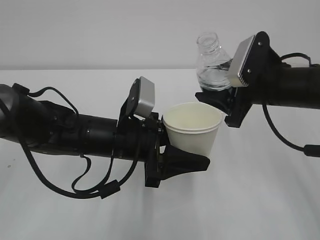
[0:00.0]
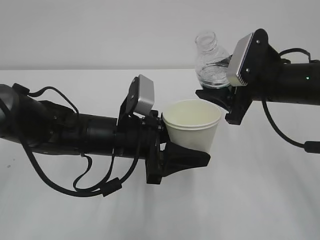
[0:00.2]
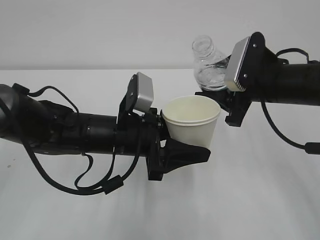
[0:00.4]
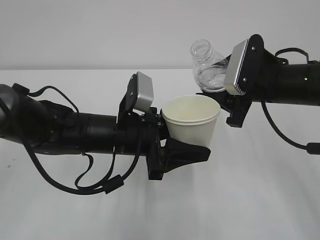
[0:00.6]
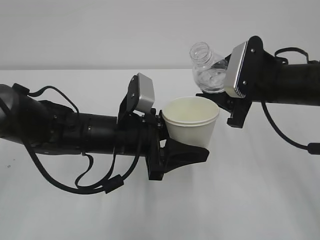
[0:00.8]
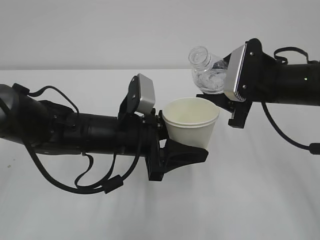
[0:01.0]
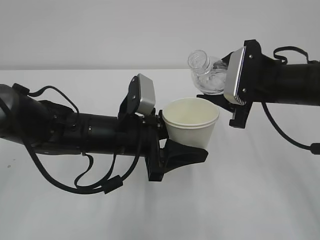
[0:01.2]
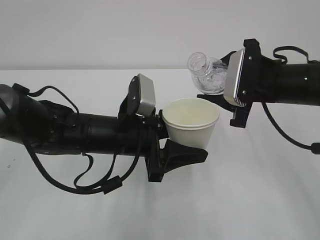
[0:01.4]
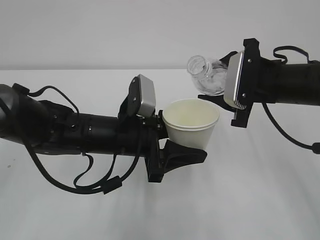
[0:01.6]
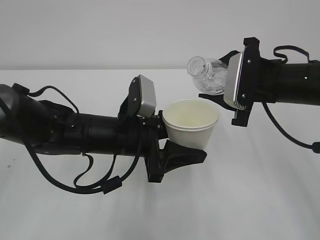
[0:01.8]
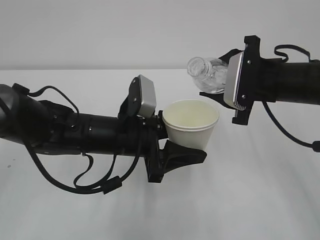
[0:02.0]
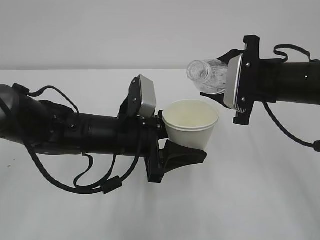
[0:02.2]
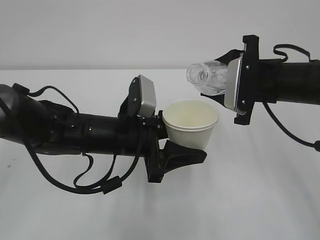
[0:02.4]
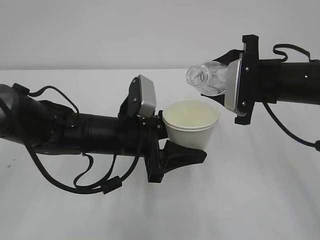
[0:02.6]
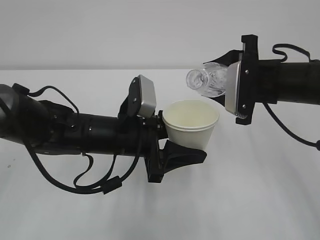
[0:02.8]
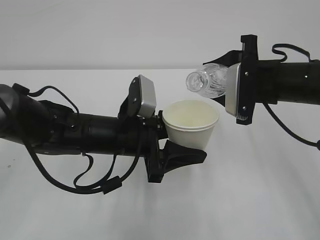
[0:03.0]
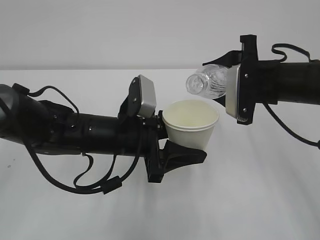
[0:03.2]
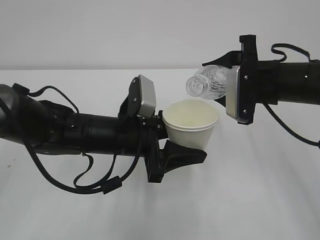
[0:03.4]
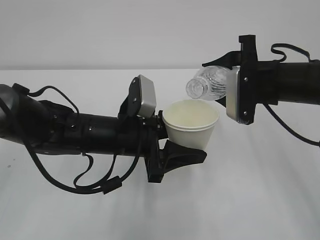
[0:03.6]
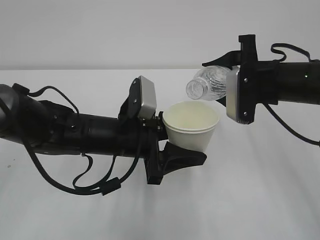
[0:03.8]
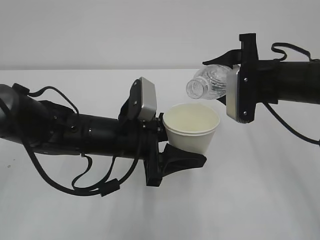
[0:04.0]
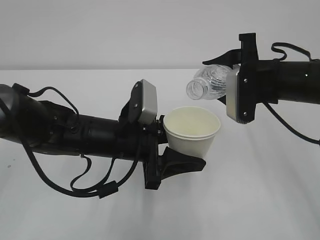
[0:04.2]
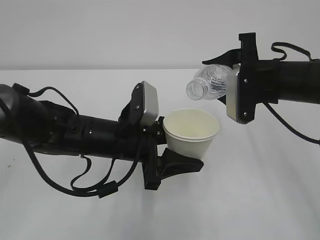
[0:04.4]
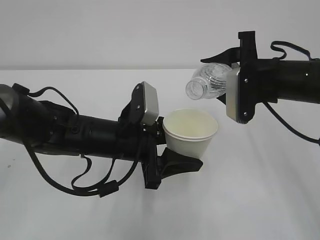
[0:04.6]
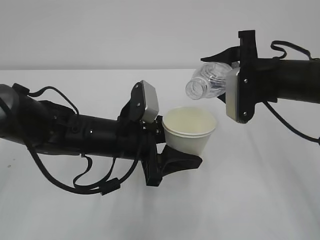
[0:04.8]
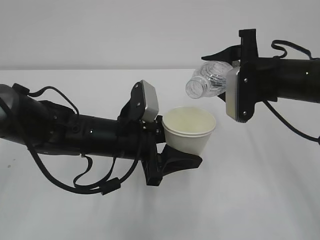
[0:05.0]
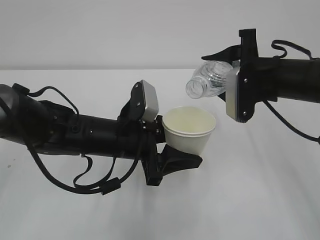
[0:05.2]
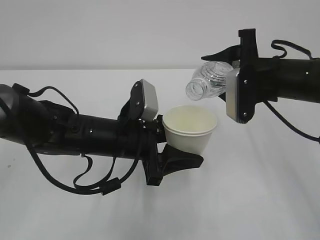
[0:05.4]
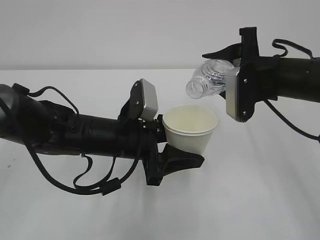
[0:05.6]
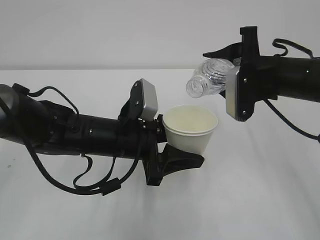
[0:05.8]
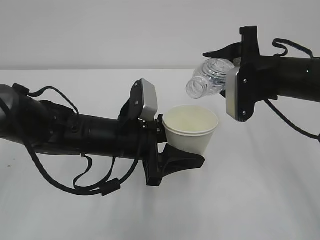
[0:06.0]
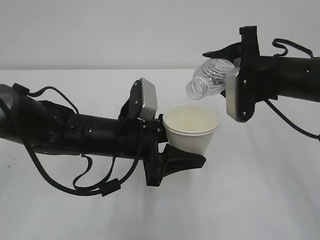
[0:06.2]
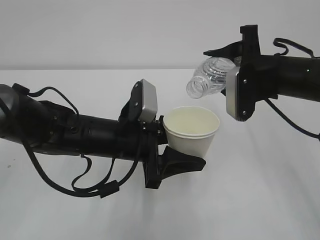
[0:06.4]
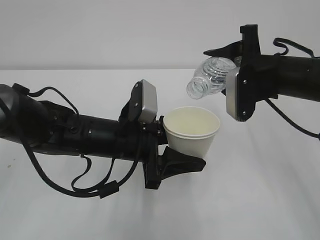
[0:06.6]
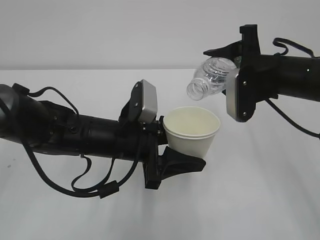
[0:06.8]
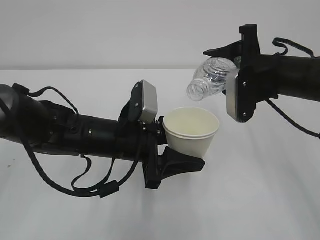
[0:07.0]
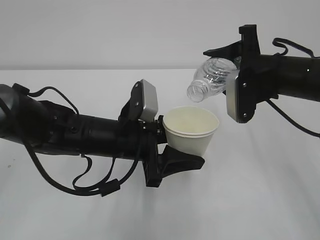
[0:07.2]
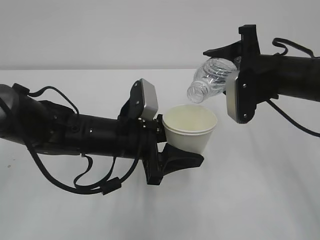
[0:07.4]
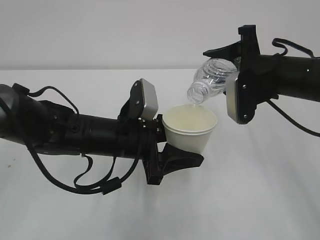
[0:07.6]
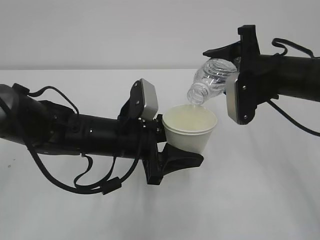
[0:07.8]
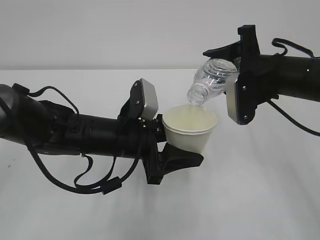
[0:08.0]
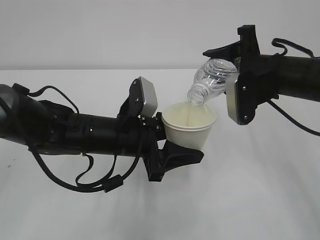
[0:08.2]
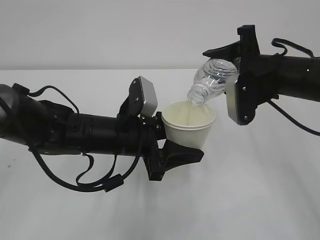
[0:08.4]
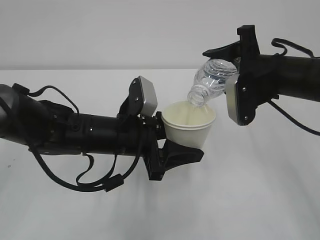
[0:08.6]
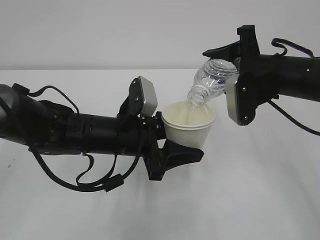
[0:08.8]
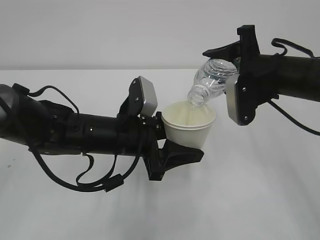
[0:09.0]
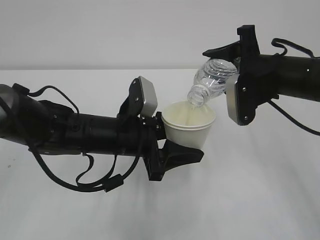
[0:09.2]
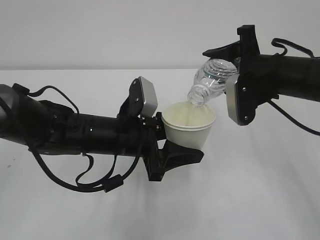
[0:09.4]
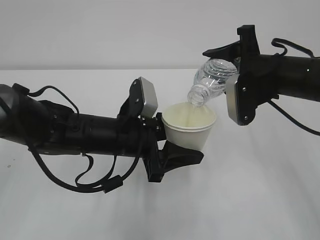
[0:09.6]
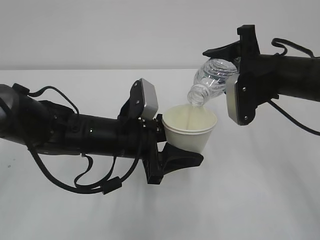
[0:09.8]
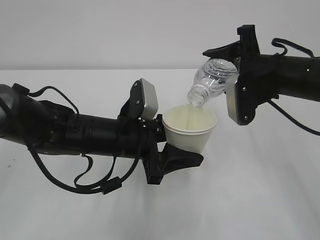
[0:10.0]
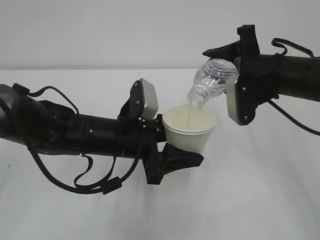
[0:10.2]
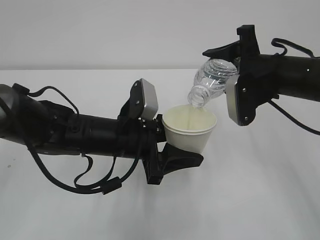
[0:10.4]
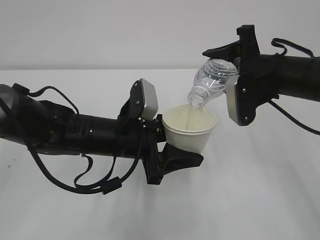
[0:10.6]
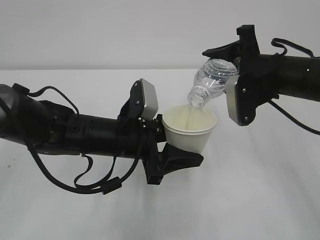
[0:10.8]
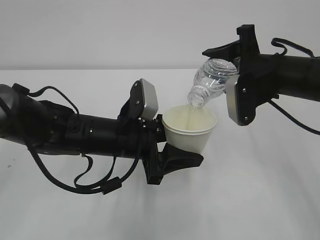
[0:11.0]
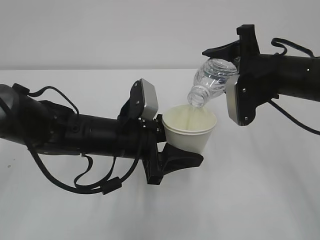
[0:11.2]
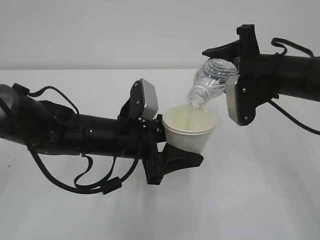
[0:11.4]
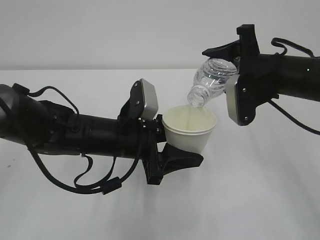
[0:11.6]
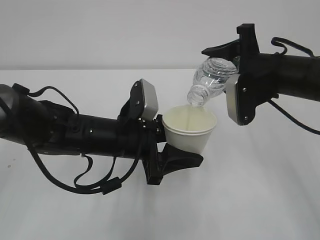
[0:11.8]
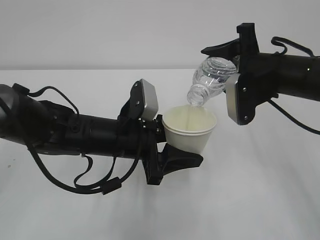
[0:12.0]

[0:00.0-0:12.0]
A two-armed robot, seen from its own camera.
0:01.6 to 0:03.0: The grippers make only small movements.
0:03.0 to 0:06.0: The grippers move only a little.
0:06.0 to 0:07.6: The grippers make only small movements.
0:07.6 to 0:12.0: Both grippers stay put.

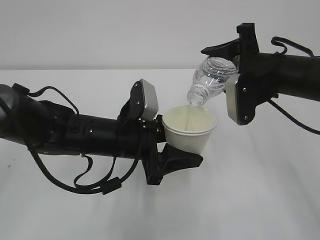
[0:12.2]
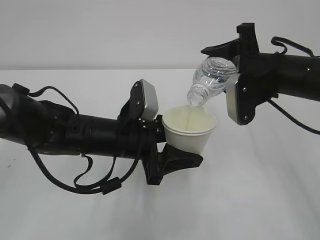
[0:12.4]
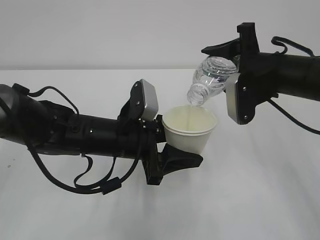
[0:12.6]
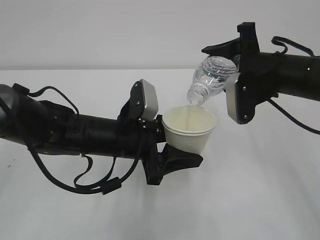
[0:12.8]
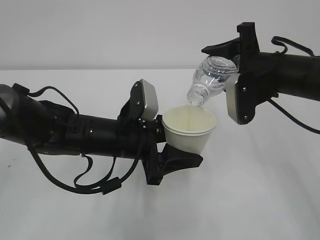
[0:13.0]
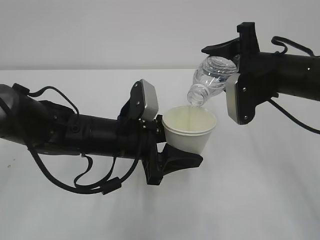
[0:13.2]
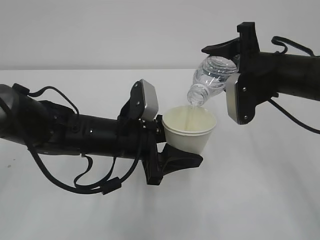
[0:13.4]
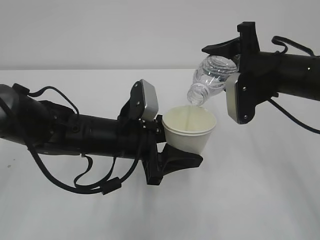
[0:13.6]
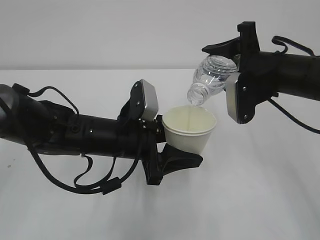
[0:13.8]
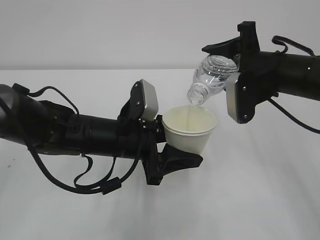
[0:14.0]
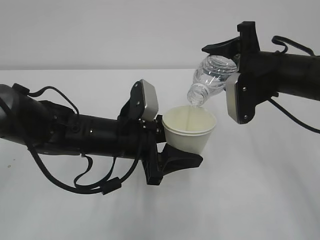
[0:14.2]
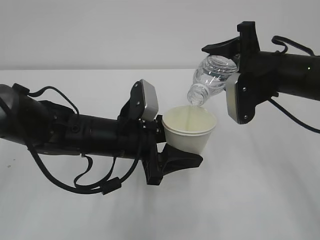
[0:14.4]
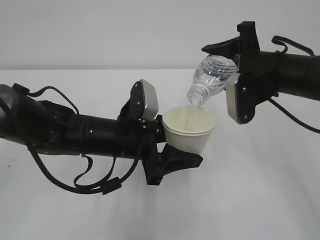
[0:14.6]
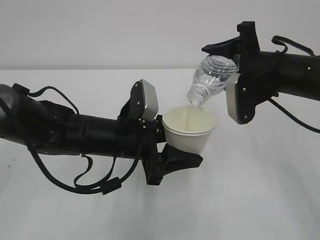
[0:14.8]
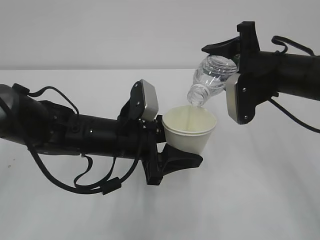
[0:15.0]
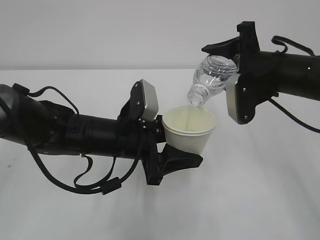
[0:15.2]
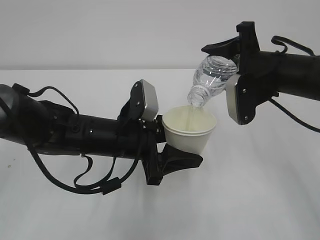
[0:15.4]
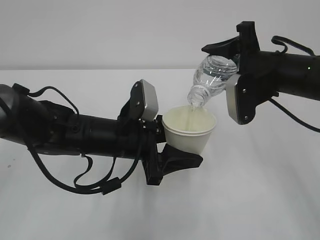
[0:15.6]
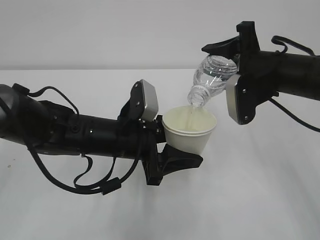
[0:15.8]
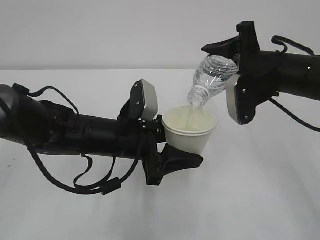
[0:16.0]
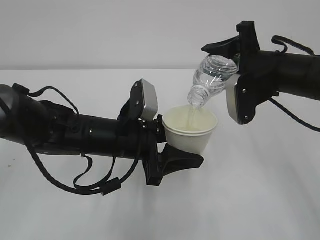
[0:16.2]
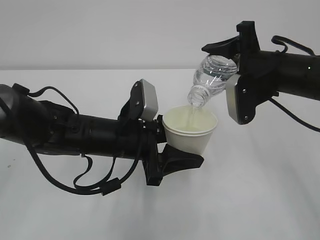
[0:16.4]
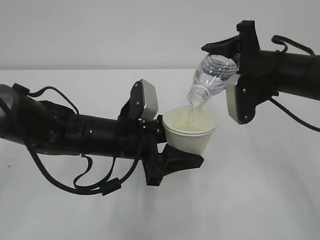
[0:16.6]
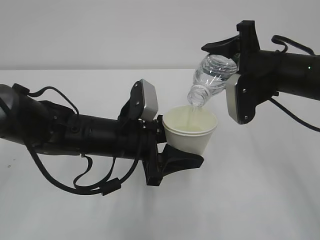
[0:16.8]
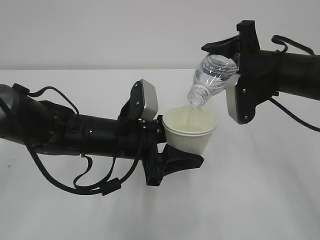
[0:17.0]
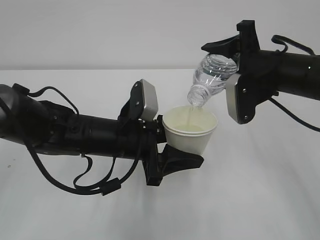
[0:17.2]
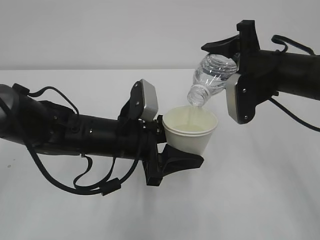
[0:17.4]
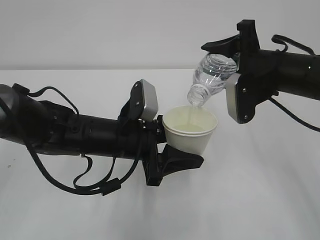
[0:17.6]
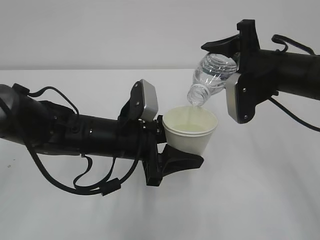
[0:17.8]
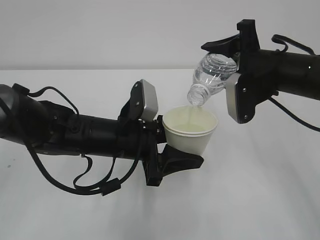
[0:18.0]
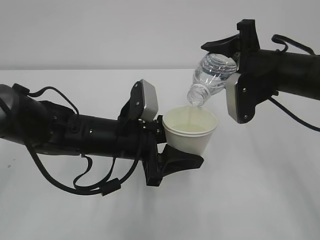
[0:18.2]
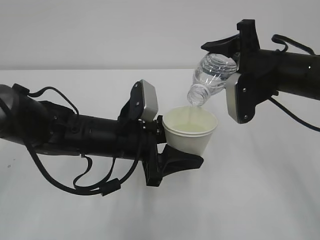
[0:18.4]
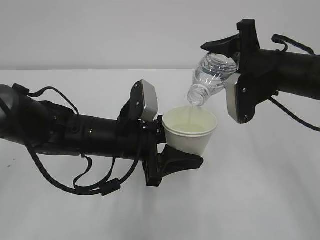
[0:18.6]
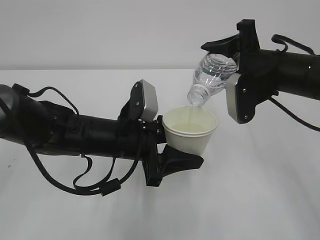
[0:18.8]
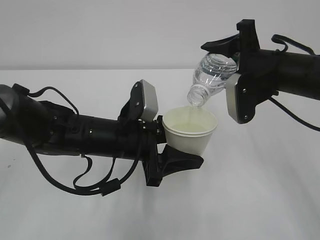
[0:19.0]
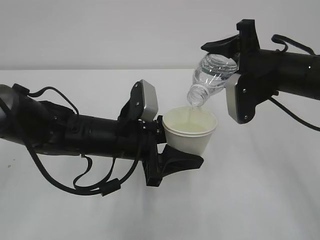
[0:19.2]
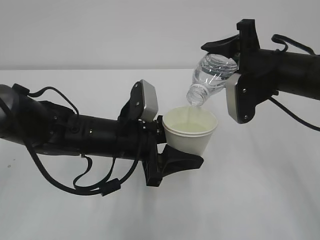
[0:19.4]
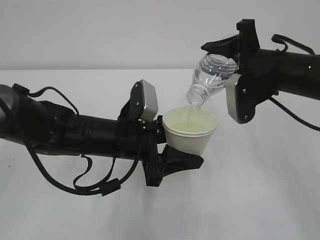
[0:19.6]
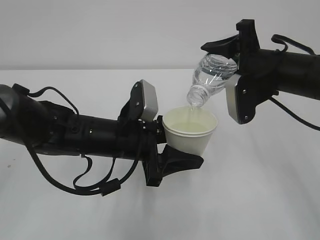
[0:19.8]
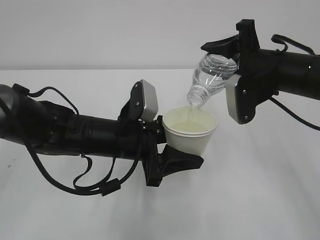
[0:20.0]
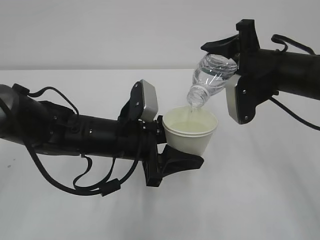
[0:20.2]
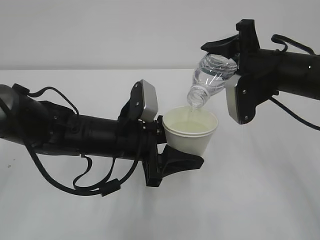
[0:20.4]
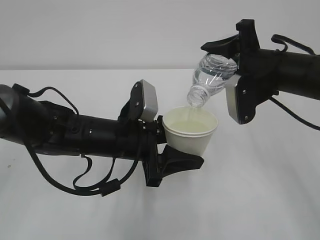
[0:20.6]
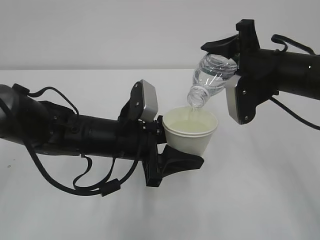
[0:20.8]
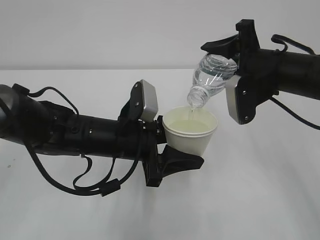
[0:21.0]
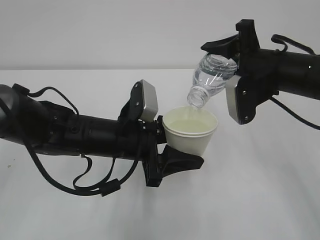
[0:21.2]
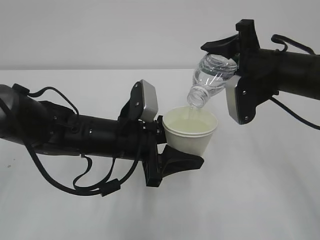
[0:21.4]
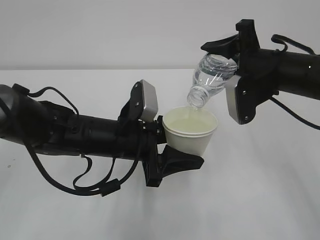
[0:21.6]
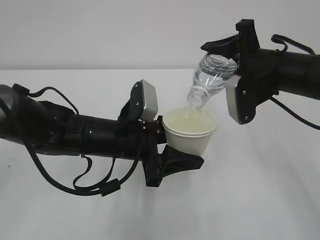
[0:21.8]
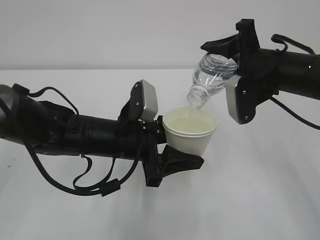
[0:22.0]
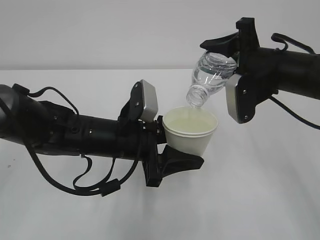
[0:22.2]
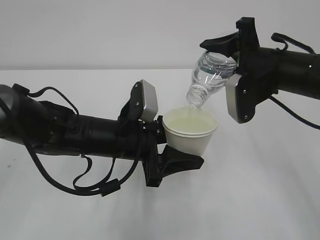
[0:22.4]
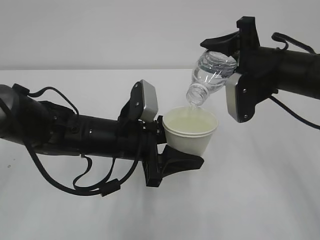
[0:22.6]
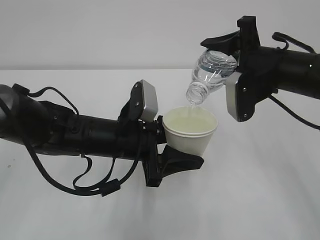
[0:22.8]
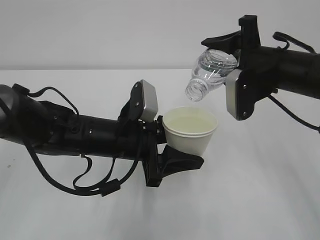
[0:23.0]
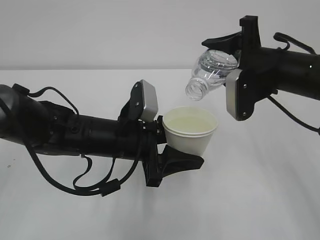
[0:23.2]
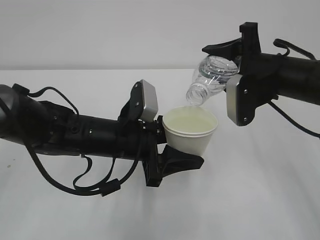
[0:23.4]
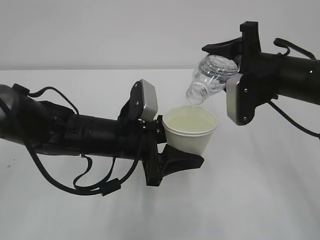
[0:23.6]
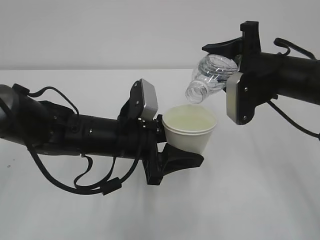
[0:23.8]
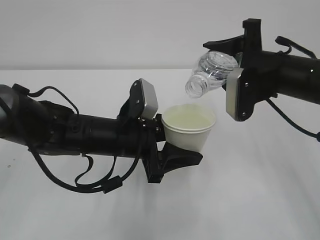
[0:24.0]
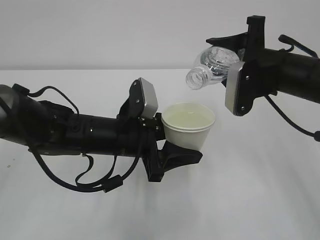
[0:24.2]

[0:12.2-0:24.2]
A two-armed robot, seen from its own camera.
0:12.2 to 0:18.2: Both grippers stay about where they are.
0:18.2 to 0:22.6: The two grippers keep their place.
0:22.6 to 0:24.2: The grippers stay close to where they were, moving slightly.
